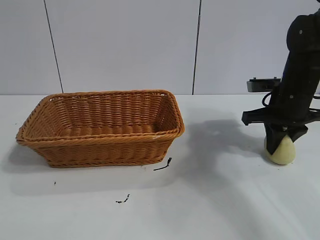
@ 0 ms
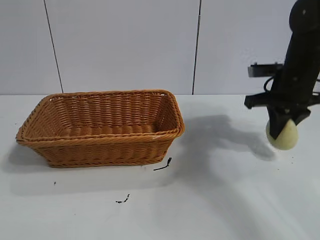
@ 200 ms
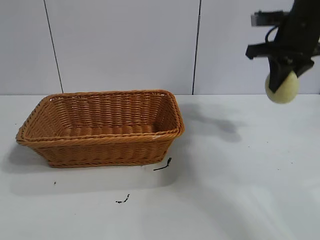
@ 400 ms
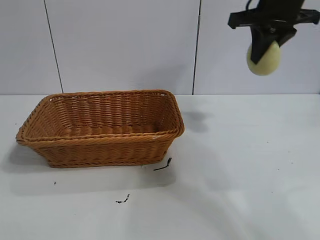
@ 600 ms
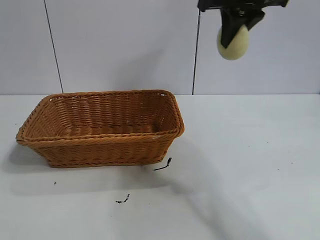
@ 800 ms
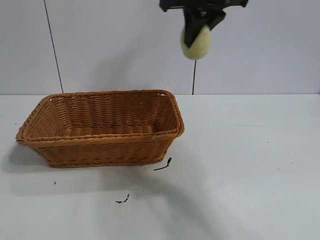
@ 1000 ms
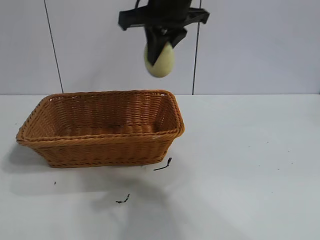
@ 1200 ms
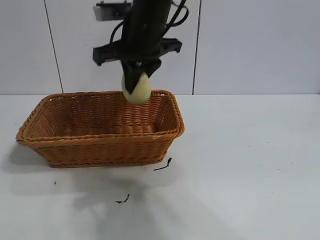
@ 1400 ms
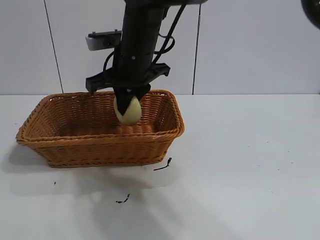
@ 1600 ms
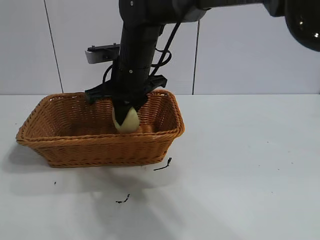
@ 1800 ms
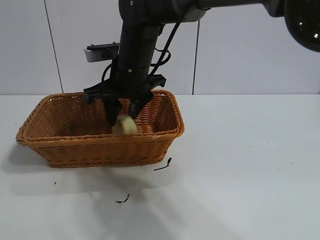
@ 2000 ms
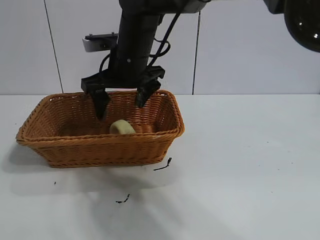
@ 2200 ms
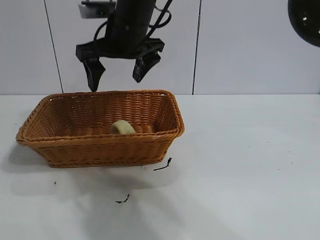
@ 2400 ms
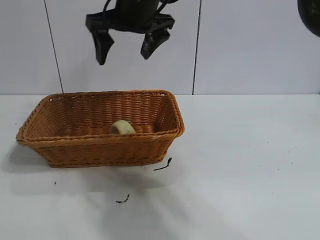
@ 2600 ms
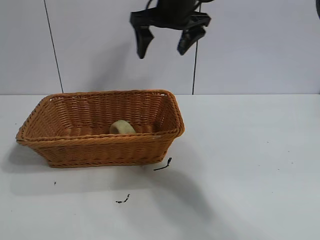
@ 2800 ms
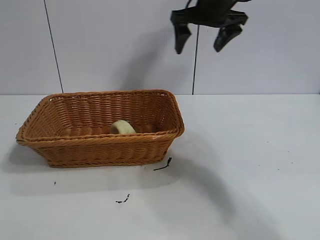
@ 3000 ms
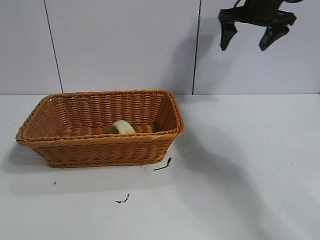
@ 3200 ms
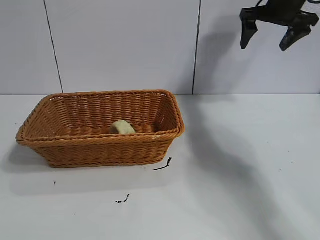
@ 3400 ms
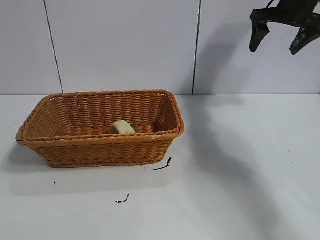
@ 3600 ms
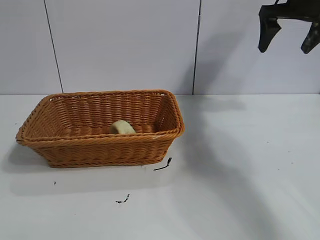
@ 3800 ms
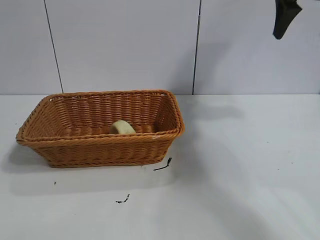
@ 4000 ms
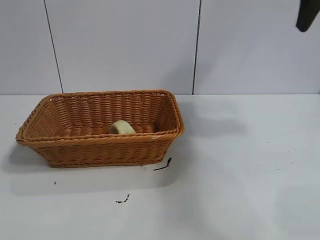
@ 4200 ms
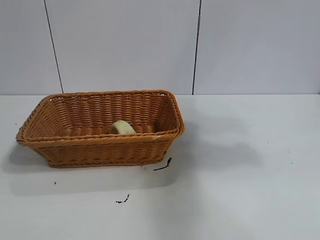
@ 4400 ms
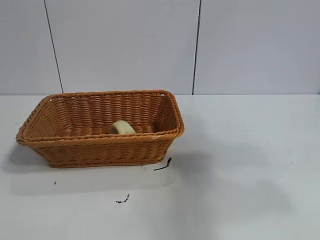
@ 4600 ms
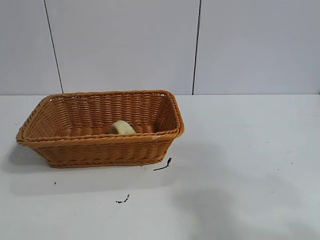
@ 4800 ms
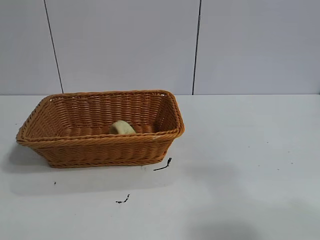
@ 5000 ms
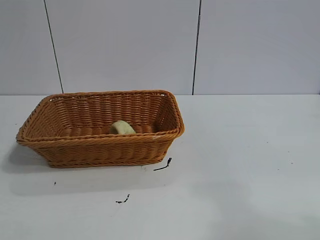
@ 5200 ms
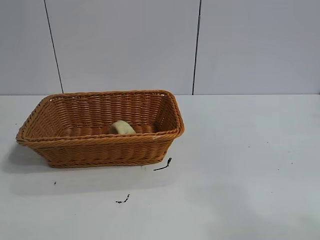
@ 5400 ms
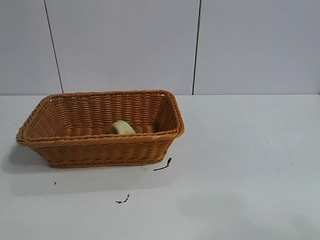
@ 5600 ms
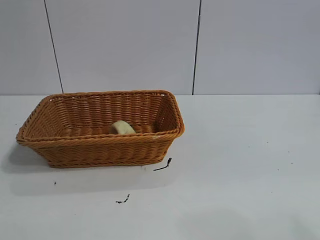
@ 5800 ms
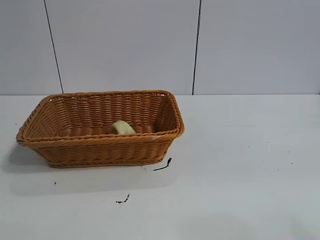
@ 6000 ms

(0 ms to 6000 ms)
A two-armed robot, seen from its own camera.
Task of the whole recording: pick up the egg yolk pastry and put it into the basket.
Step, 0 ms - 2000 ms: Place the egg yolk pastry in the basket with right gripper.
